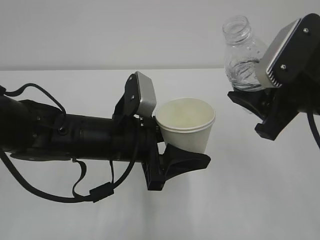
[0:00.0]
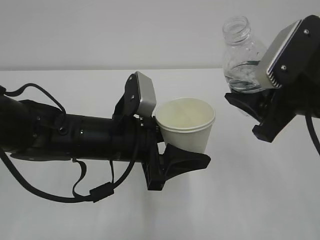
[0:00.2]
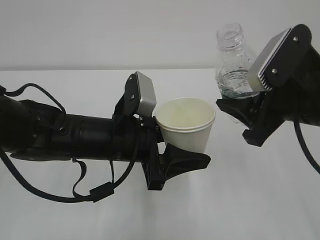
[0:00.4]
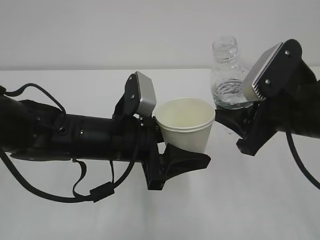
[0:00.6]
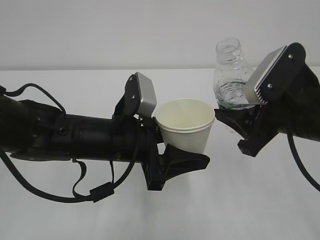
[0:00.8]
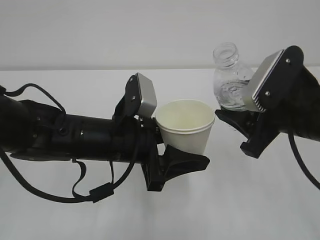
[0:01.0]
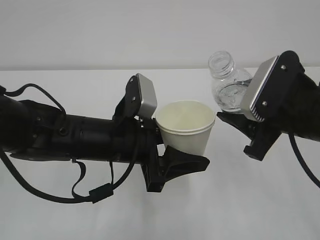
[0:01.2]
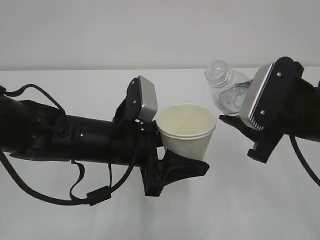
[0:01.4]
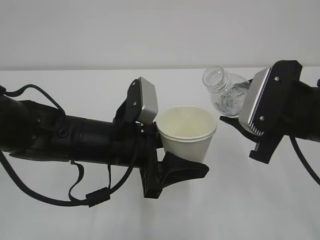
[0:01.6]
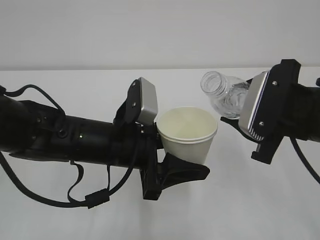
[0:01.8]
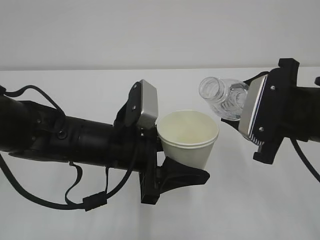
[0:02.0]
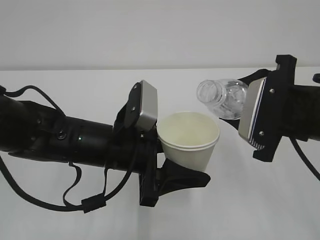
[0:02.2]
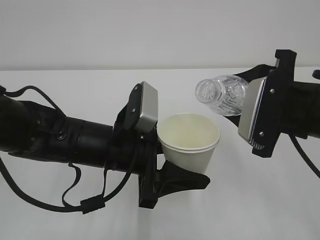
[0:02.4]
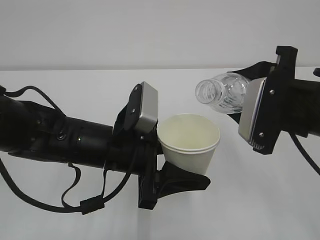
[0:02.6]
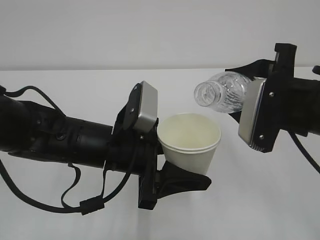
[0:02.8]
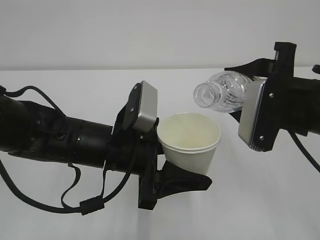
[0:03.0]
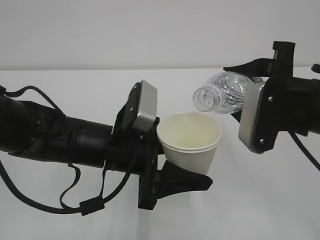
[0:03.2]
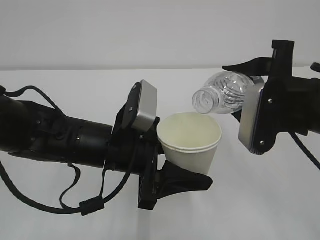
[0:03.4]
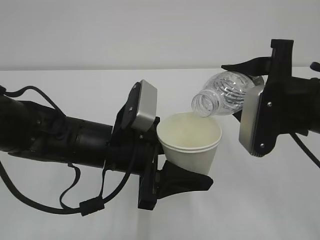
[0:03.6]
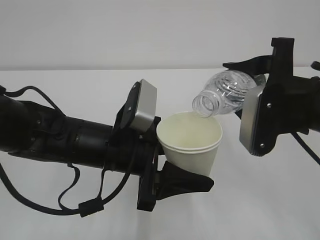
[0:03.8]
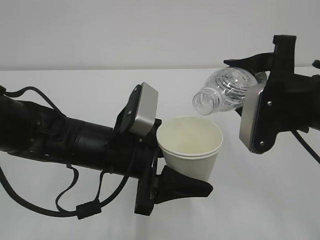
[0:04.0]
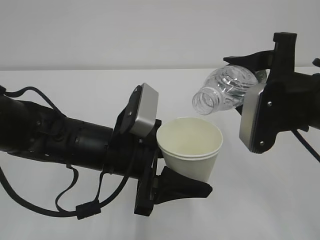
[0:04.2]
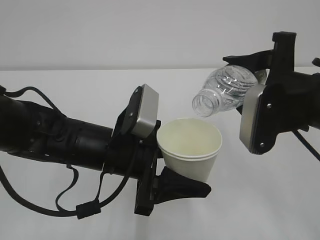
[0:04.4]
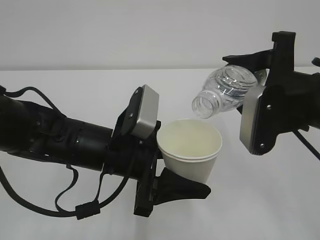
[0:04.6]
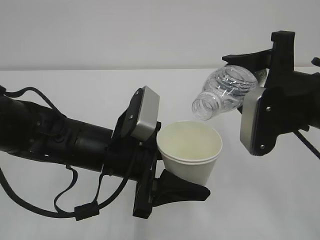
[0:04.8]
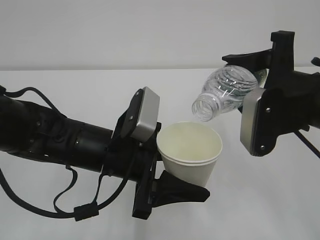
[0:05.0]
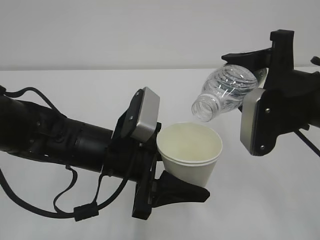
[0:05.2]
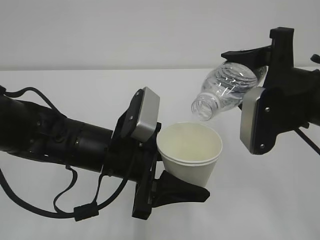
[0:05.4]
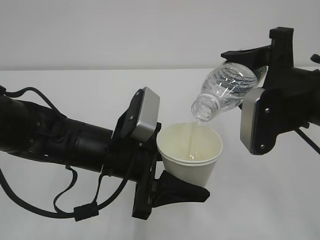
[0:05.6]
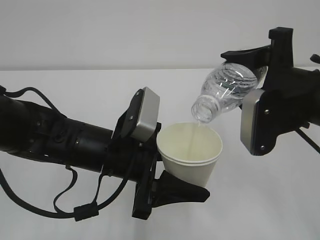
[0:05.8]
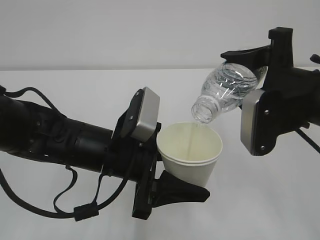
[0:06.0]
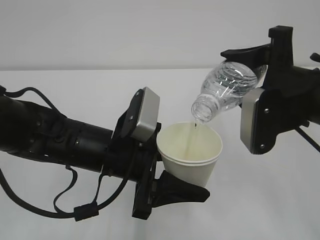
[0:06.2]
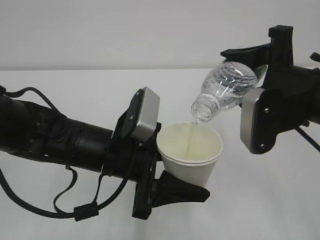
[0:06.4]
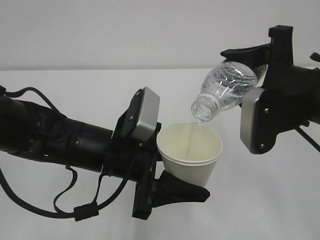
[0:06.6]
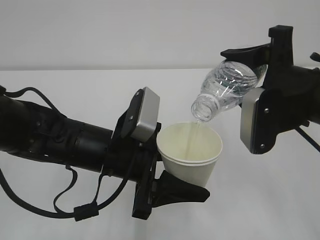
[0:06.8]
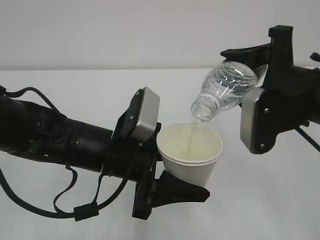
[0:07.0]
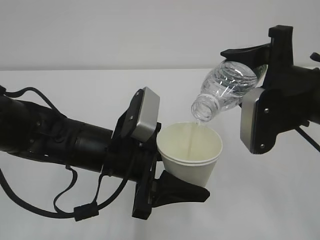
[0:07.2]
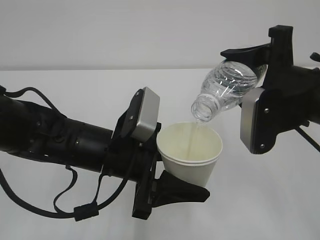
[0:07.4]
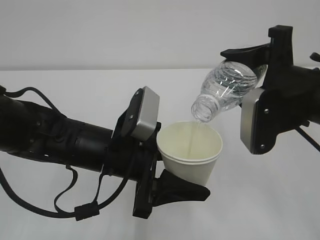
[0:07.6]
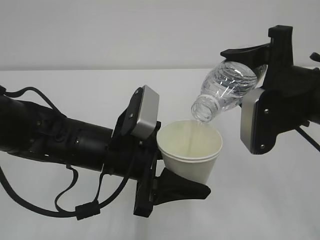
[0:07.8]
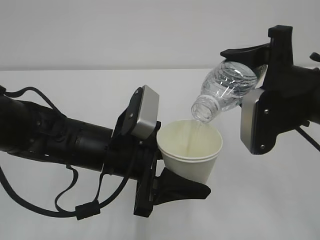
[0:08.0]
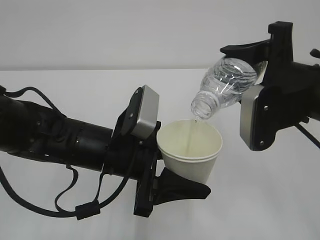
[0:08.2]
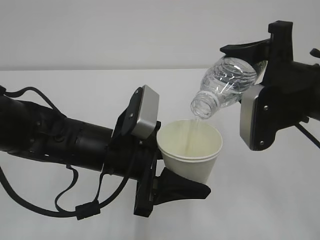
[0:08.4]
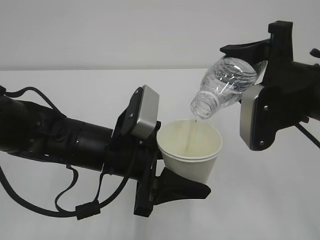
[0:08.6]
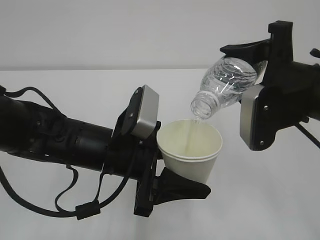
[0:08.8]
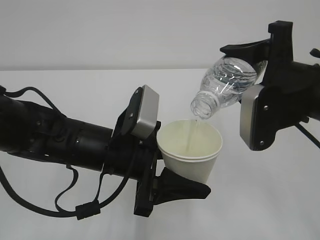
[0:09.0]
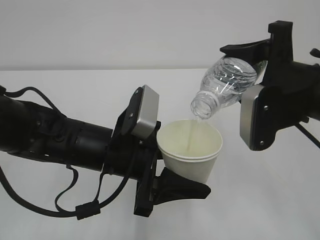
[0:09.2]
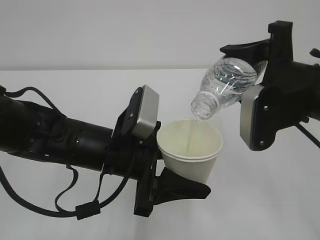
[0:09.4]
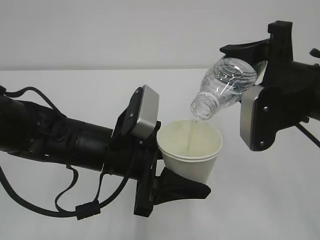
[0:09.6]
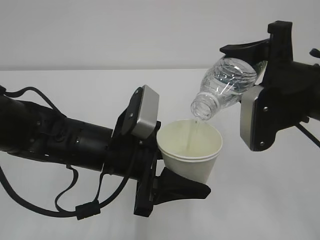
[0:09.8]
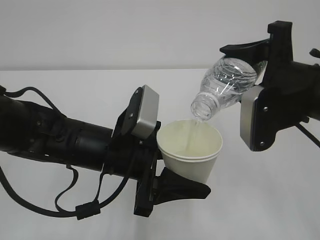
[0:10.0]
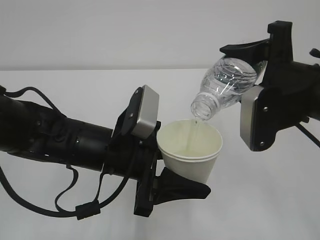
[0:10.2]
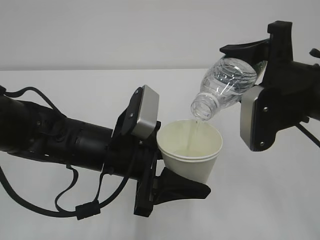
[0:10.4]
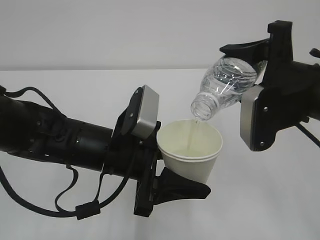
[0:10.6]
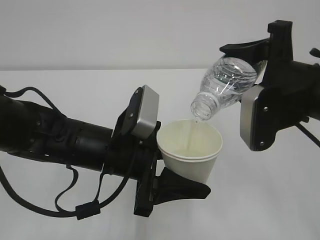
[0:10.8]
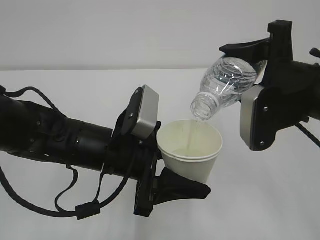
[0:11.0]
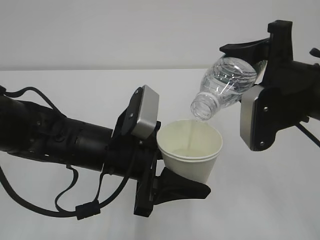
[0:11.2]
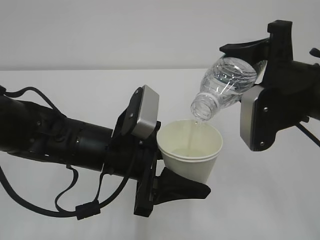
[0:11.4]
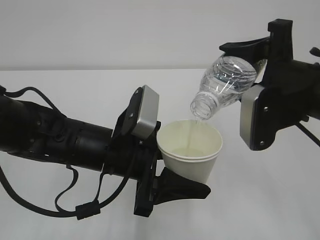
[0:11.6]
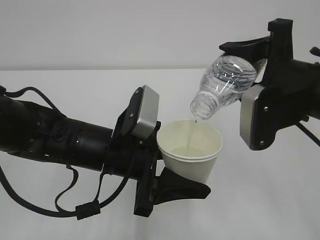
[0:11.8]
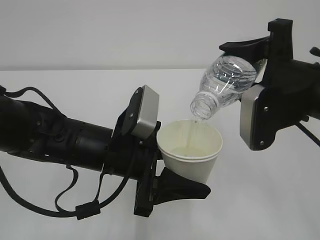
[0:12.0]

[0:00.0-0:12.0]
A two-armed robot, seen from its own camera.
0:00.0 to 0:01.6: The grippers make only small movements.
0:03.0 to 0:04.4: The grippers stay close to where they were, moving slightly.
0:04.4 to 0:06.0: The grippers move only a little.
0:06.0 to 0:12.0: The two grippers keep their place.

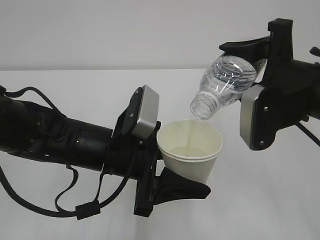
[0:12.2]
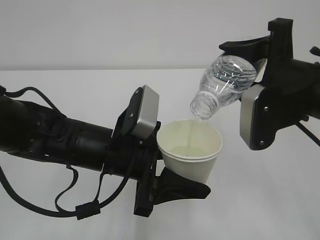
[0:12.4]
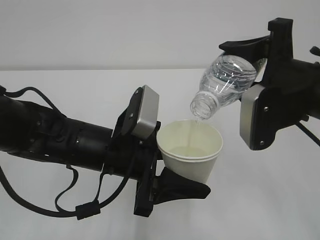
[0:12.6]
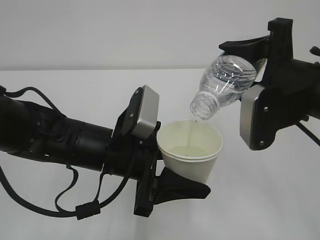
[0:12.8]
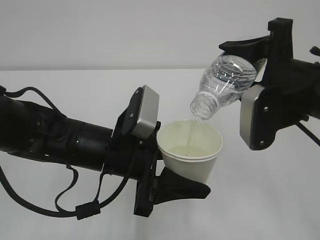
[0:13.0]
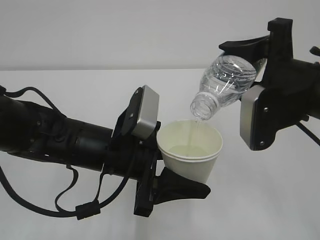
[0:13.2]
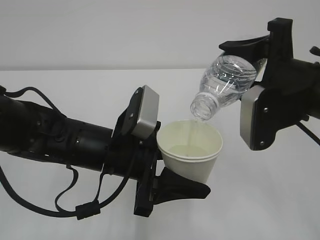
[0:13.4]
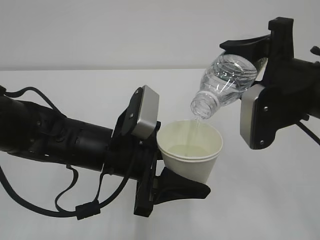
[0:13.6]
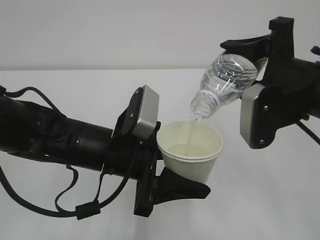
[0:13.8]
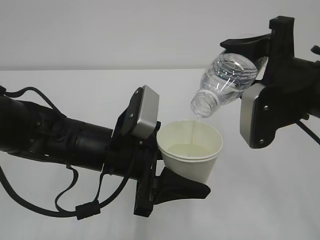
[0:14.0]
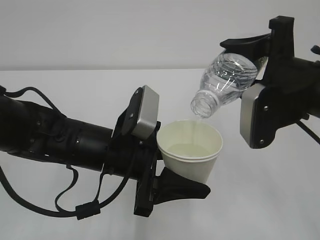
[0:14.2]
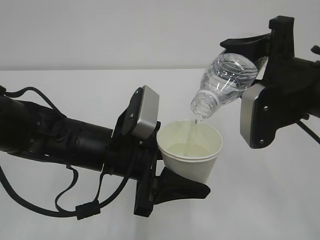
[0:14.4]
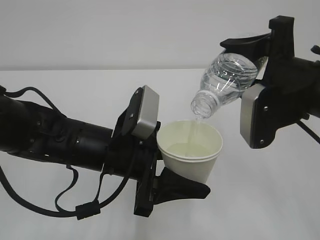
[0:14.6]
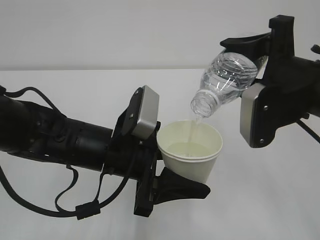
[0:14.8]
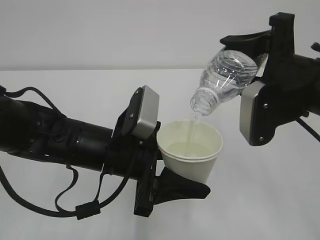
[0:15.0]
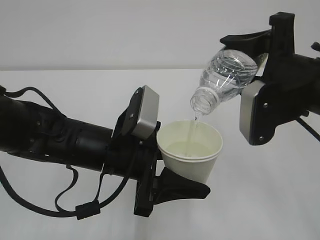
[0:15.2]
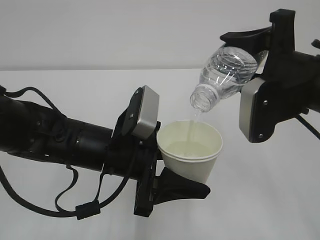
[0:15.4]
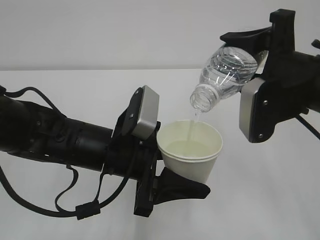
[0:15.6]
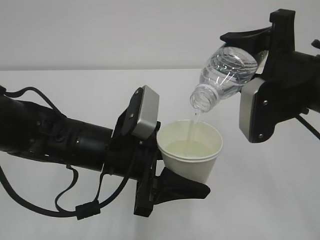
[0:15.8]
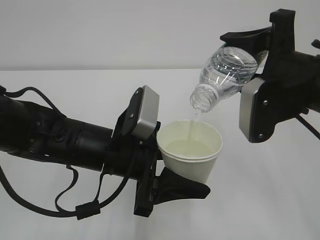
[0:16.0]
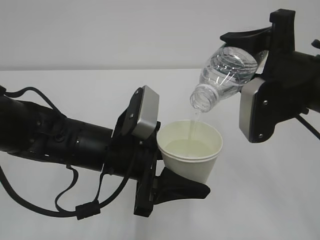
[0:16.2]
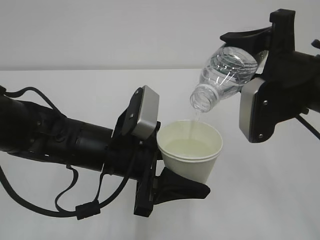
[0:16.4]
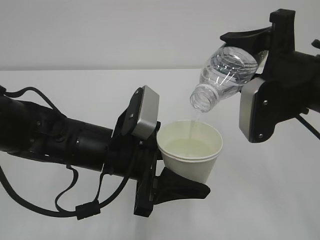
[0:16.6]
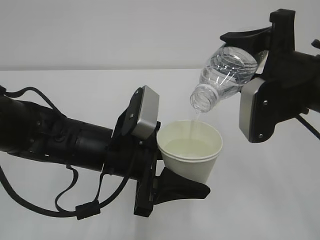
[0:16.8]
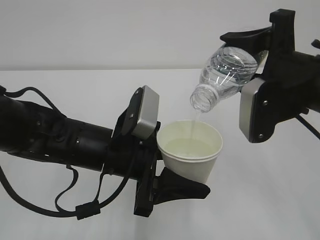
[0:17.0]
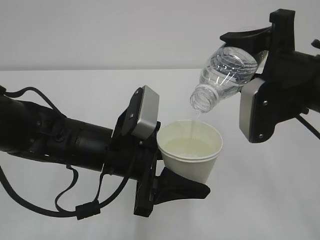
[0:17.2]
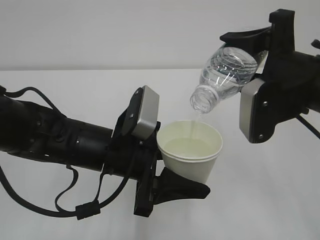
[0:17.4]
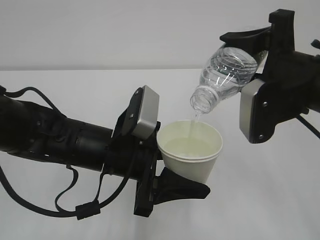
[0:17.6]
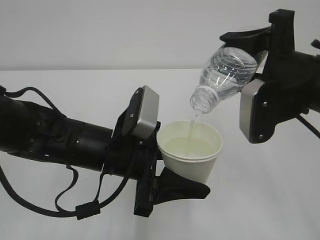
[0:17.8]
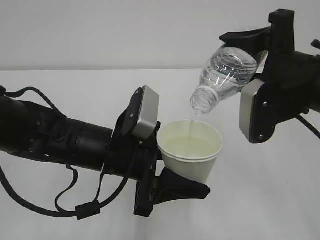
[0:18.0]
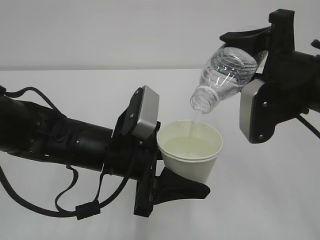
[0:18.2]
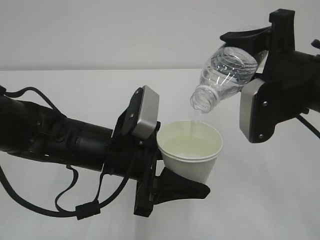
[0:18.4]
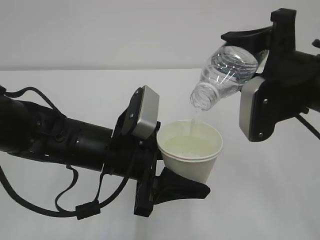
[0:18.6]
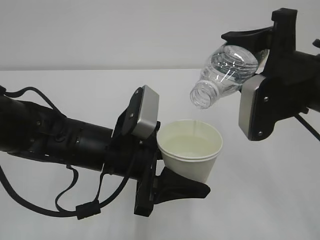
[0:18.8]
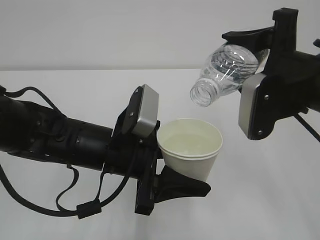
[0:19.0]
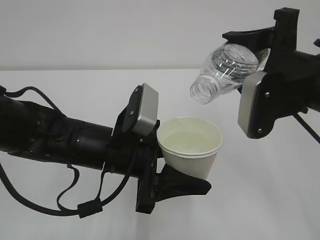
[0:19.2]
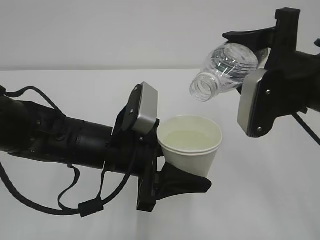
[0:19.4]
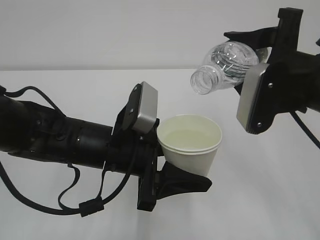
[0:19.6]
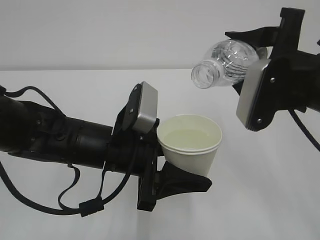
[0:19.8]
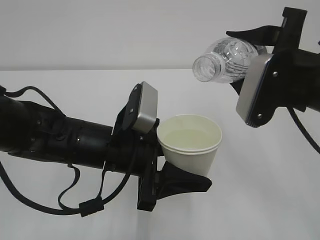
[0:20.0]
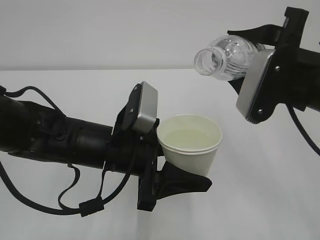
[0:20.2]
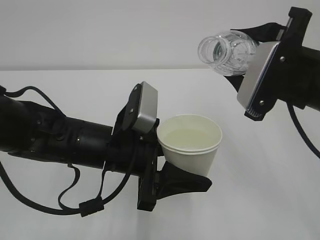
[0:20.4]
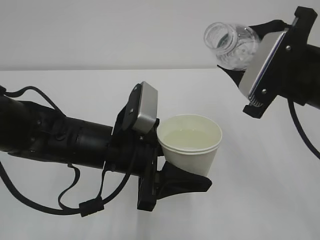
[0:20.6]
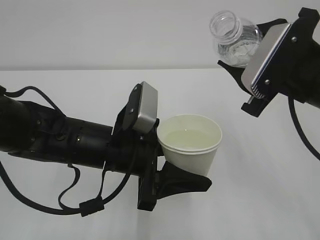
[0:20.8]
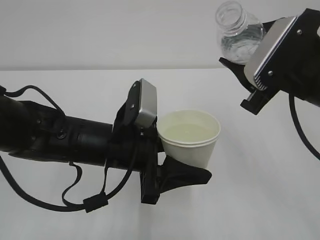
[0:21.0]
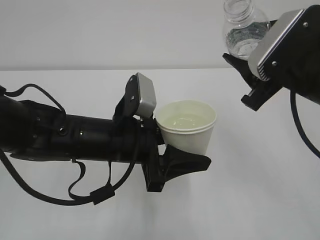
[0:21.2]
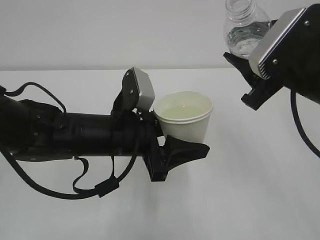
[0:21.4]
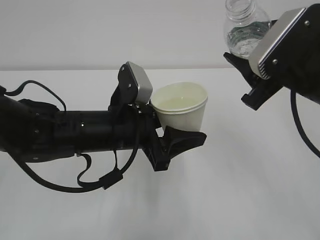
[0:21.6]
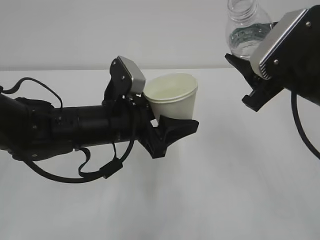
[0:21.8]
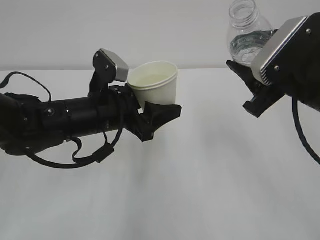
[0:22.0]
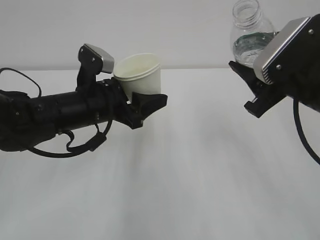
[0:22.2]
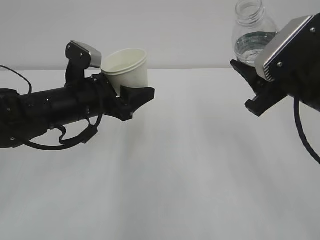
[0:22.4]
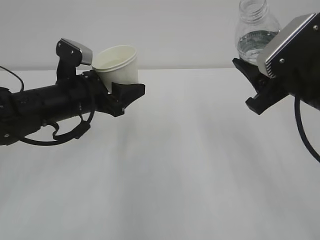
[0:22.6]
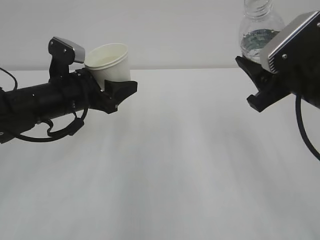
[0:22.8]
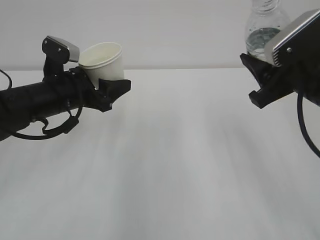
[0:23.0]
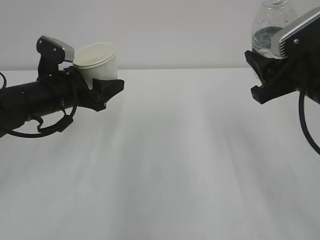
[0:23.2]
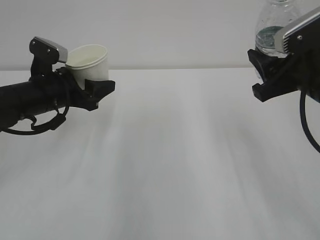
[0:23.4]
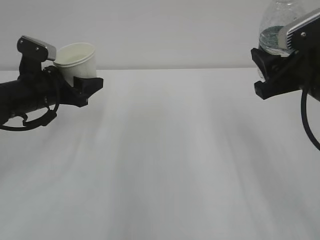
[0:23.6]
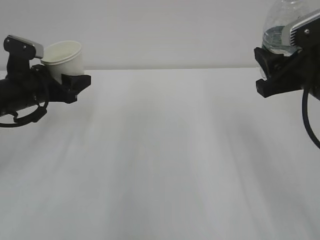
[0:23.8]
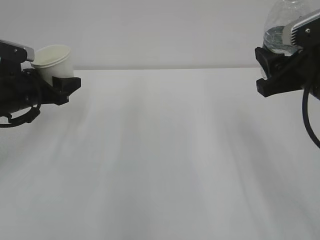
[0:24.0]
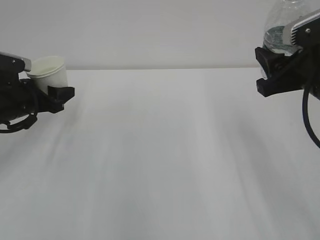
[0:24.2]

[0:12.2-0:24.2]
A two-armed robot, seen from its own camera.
0:12.2 to 0:18.2: The two grippers keep their place.
0:18.2 to 0:19.8: There are only small adjustments of the grippers.
0:21.2 to 0:22.6: The left gripper goes roughly 10 cm to the left and forward.
0:22.6 to 0:24.2: The left gripper heads to the left, covering roughly 15 cm.
